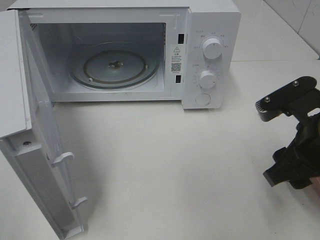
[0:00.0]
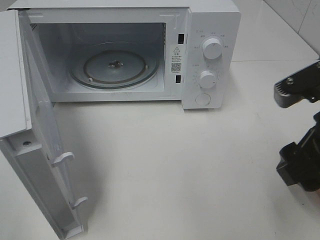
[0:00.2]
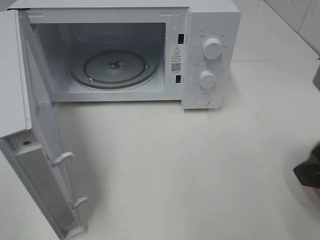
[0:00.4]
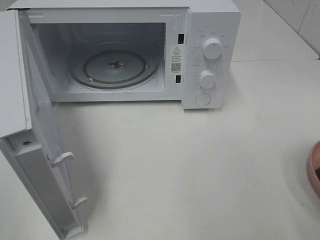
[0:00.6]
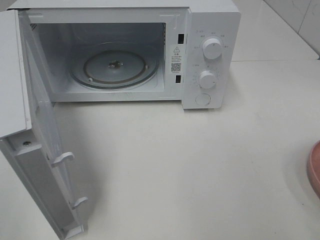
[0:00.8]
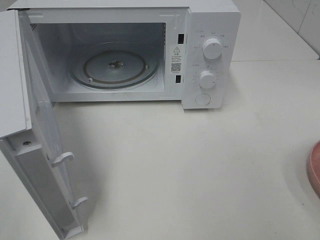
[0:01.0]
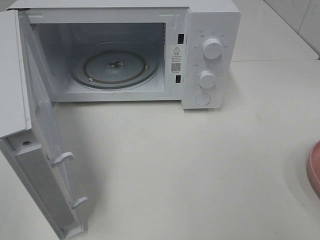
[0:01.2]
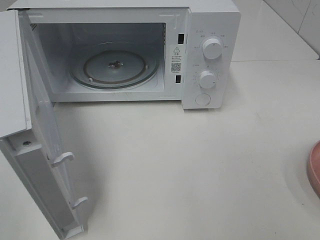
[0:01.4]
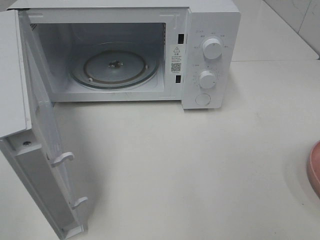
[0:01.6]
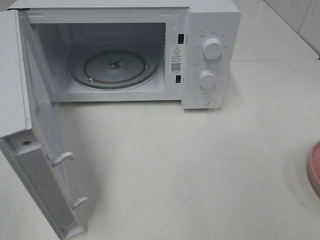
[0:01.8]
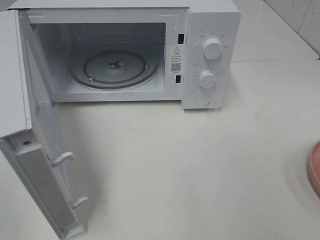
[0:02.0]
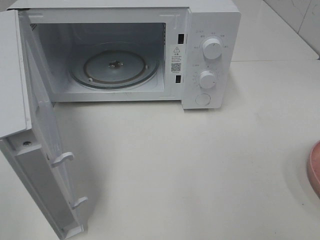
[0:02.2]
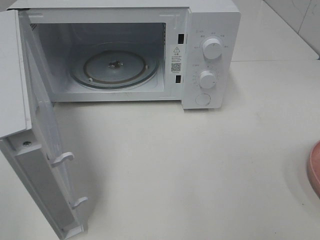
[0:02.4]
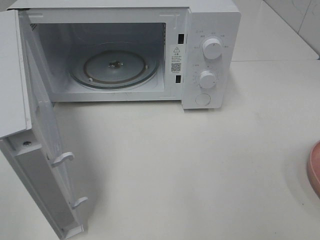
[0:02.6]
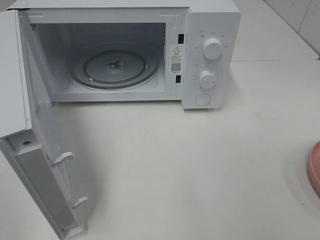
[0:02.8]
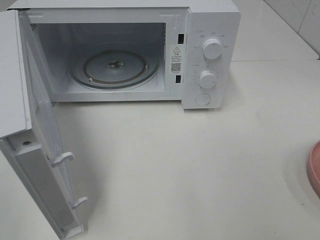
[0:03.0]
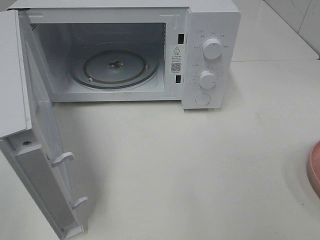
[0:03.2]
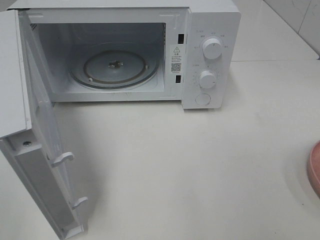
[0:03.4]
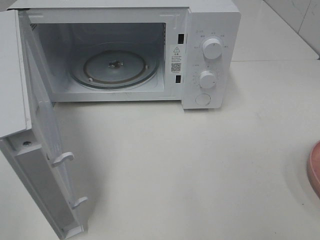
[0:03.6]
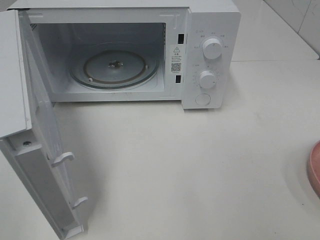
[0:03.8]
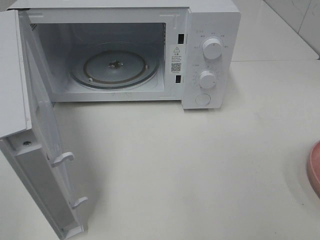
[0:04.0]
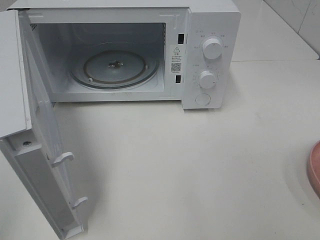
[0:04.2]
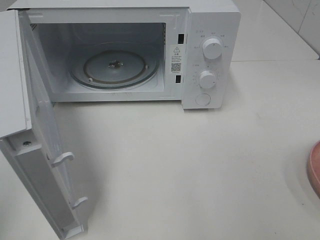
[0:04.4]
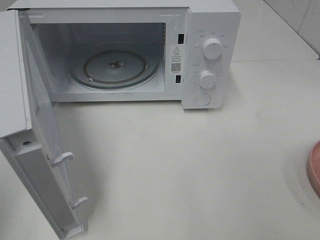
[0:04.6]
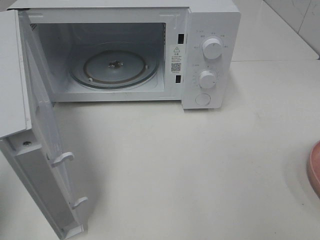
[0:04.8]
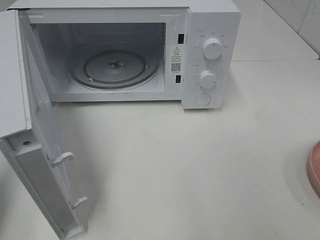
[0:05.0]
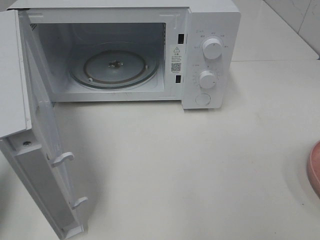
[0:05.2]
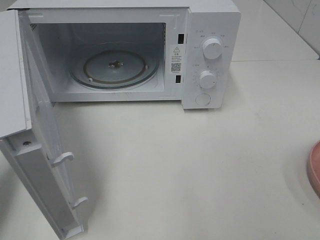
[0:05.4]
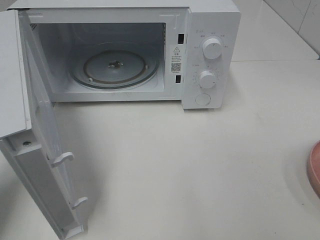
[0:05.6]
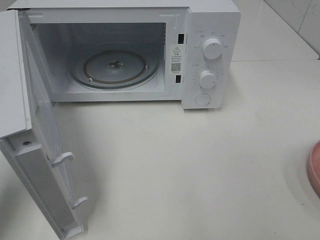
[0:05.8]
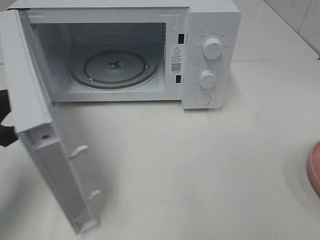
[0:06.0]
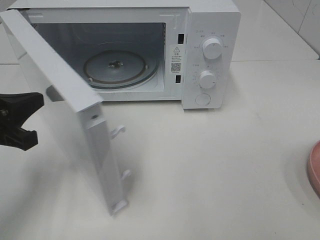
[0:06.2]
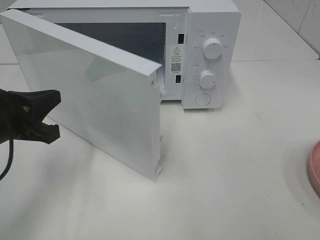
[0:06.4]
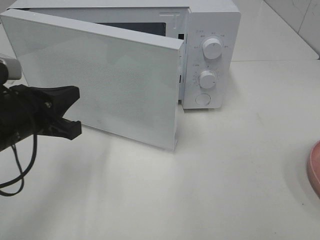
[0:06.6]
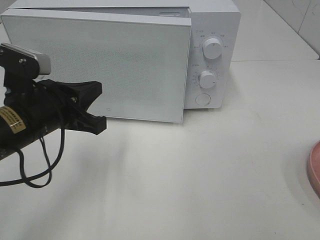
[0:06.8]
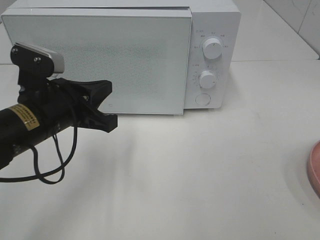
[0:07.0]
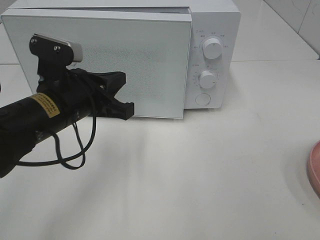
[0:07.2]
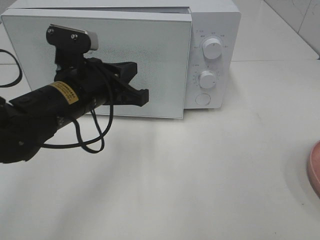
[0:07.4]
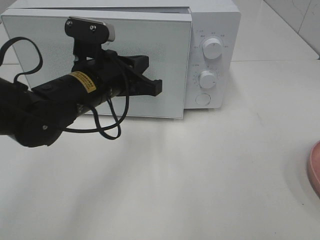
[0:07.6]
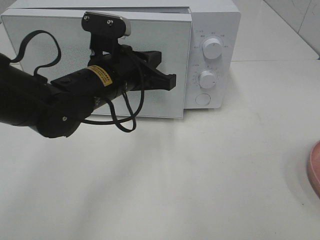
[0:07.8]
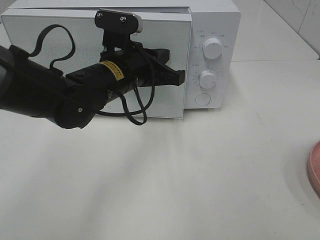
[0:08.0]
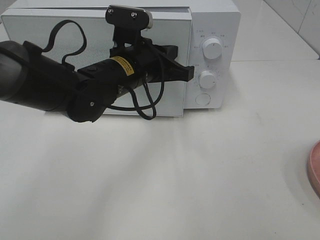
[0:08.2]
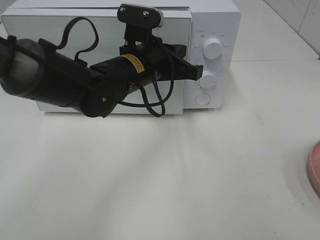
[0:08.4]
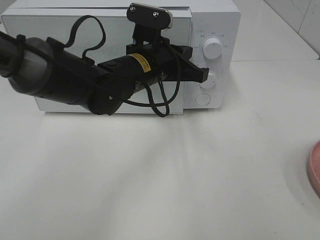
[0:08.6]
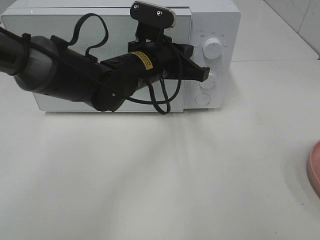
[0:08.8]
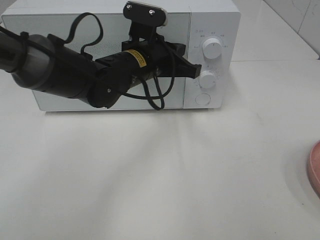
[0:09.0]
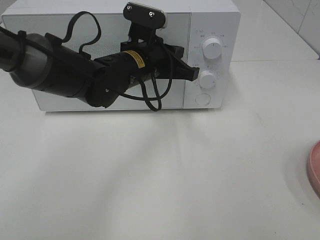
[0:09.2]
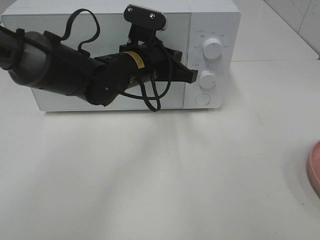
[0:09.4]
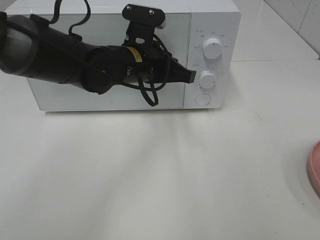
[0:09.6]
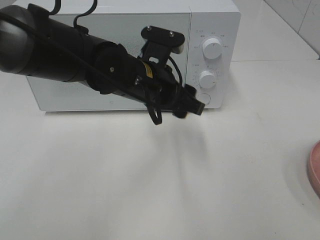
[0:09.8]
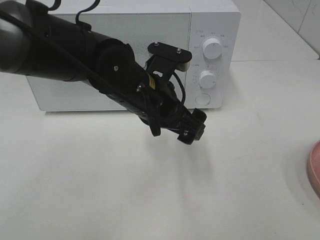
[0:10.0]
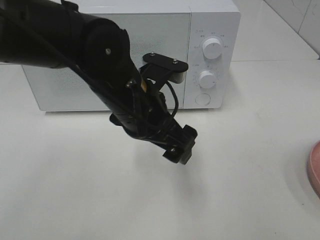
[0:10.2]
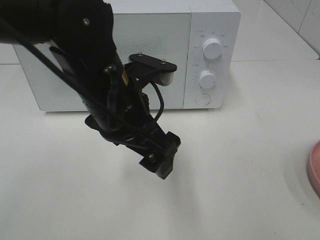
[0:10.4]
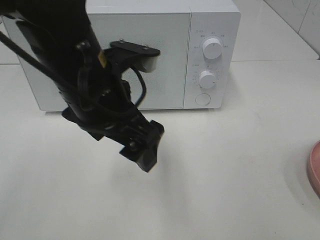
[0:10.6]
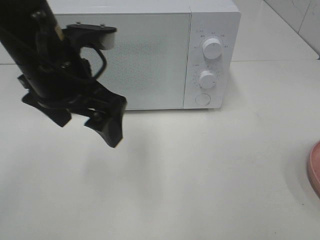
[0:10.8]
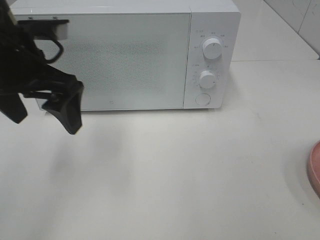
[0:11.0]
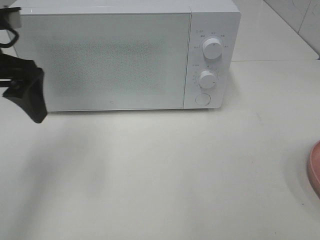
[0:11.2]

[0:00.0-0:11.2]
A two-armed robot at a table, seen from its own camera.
Task of the whole recording: Heat the burger.
Step, 0:00.0 to 0:09.6: Left hand: close the microwave door.
0:00.0 to 0:01.6: The right gripper heads backward, upward and to the right, covering about 20 cm.
0:04.8 to 0:06.4: The left gripper is displaced downward, forward and to the right by about 20 cm.
0:06.4 to 0:08.0: The left gripper goes roughly 20 cm to the right and forward.
0:08.0 to 0:09.6: The grippers move only a little.
0:09.6 to 0:11.2: The left gripper goes roughly 25 cm to the left and upward, and opens up.

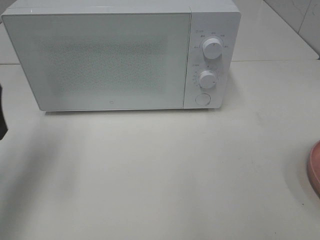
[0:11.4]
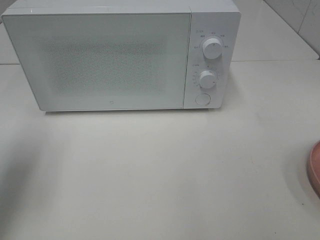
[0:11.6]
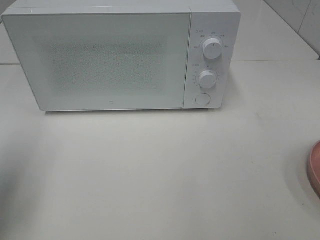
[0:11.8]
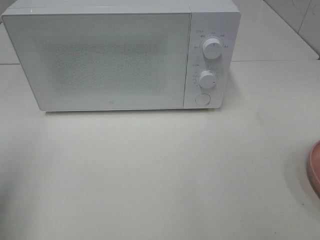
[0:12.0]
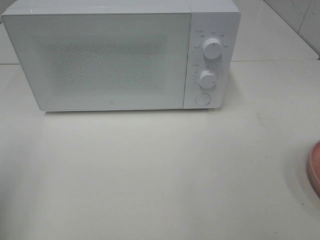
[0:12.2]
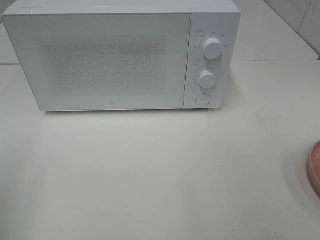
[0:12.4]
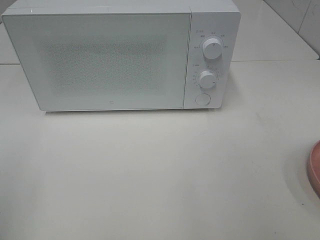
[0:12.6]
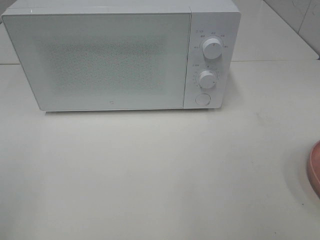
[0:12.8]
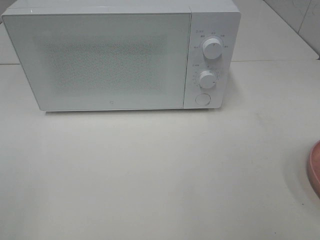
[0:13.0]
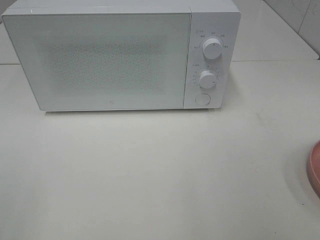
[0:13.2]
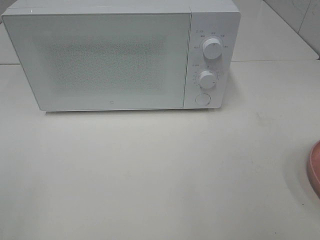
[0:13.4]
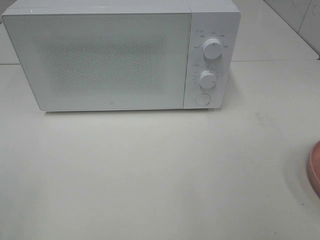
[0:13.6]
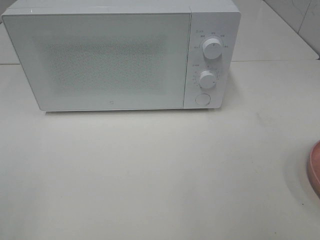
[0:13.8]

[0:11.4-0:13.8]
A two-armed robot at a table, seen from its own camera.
Task of the whole recording: Heat the burger.
0:11.4 to 0:12.6: The left gripper travels backward by approximately 20 cm.

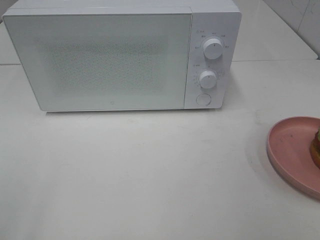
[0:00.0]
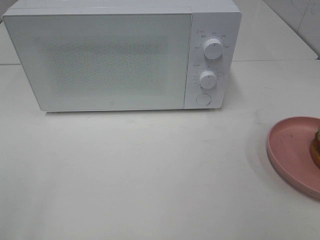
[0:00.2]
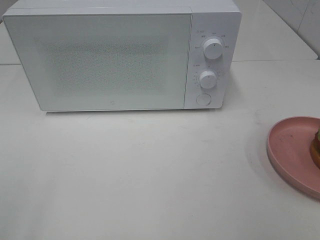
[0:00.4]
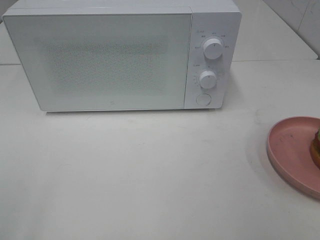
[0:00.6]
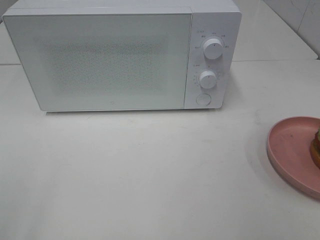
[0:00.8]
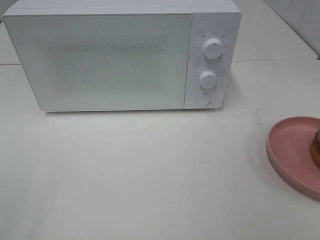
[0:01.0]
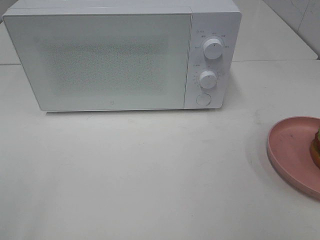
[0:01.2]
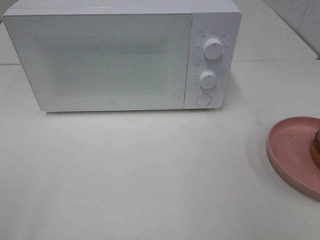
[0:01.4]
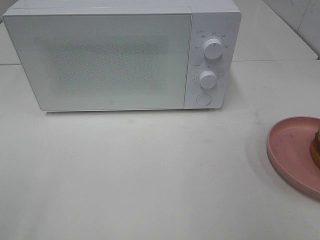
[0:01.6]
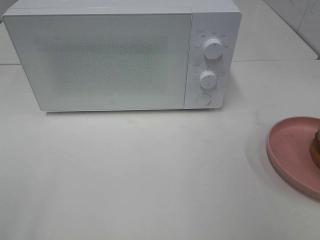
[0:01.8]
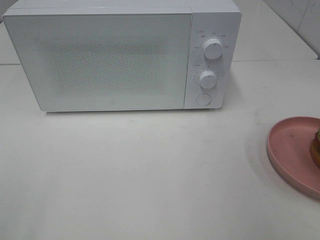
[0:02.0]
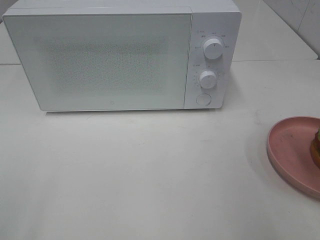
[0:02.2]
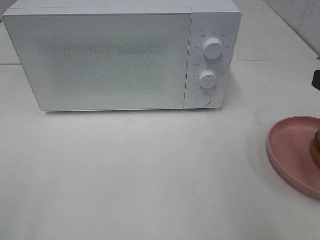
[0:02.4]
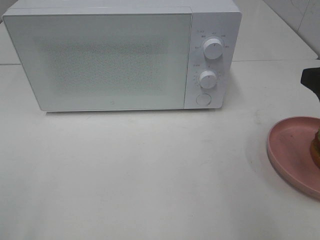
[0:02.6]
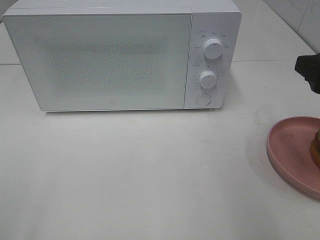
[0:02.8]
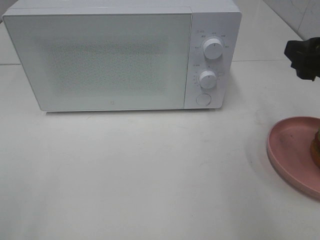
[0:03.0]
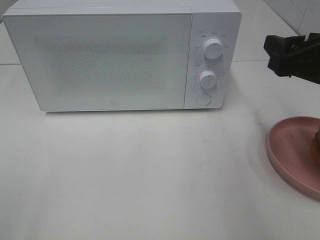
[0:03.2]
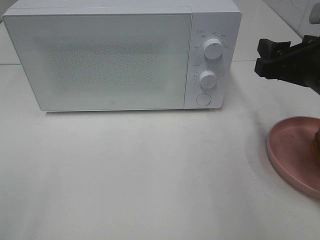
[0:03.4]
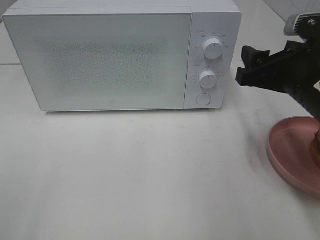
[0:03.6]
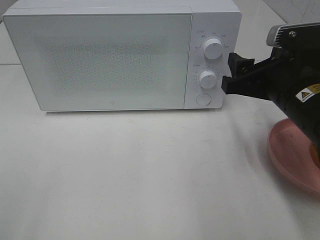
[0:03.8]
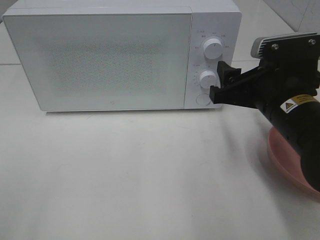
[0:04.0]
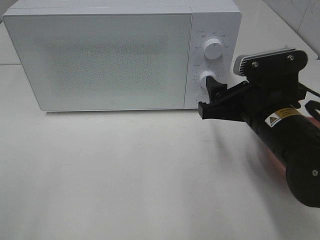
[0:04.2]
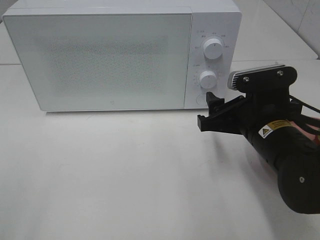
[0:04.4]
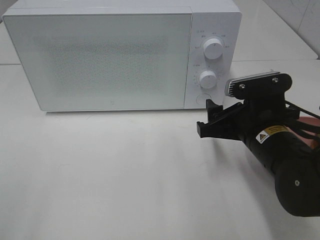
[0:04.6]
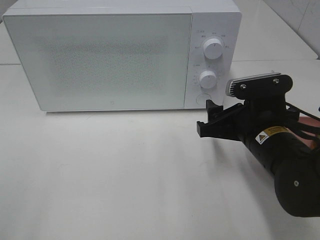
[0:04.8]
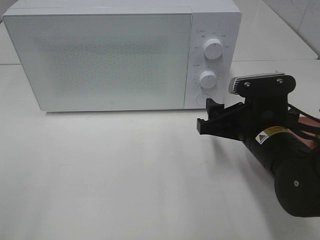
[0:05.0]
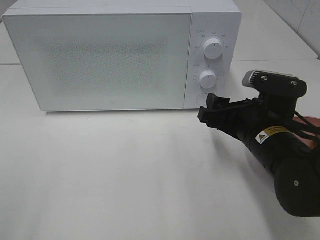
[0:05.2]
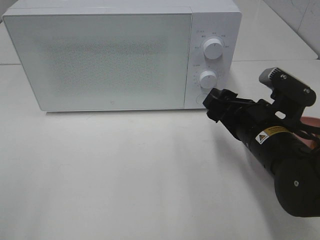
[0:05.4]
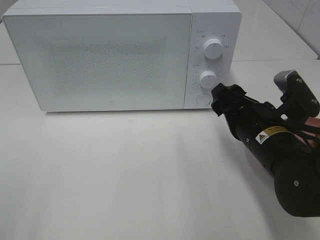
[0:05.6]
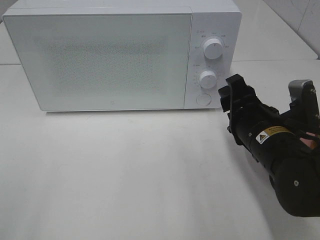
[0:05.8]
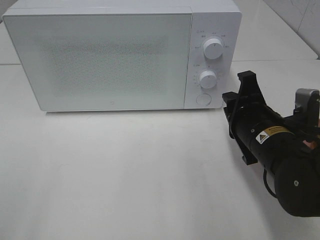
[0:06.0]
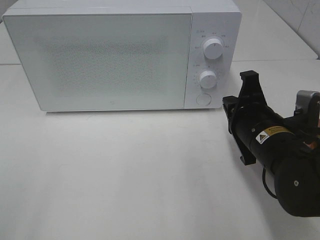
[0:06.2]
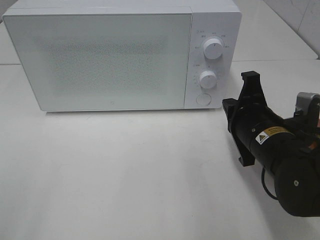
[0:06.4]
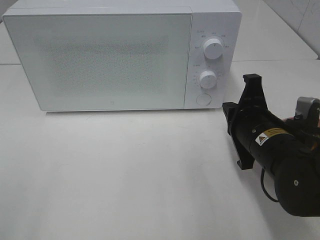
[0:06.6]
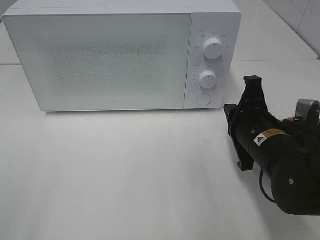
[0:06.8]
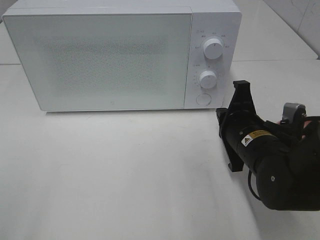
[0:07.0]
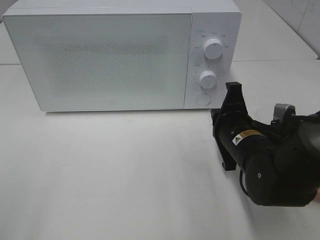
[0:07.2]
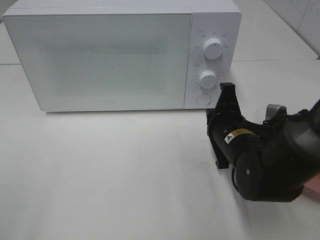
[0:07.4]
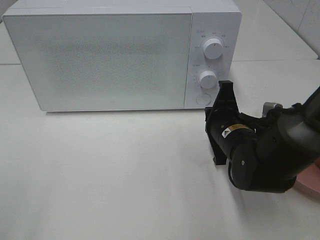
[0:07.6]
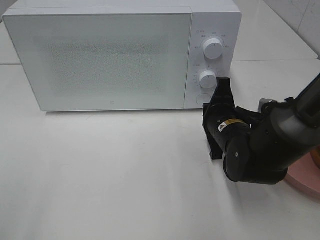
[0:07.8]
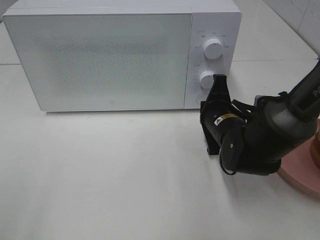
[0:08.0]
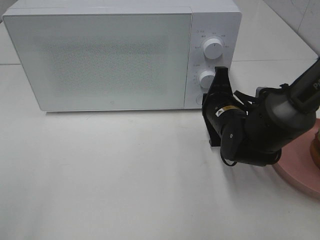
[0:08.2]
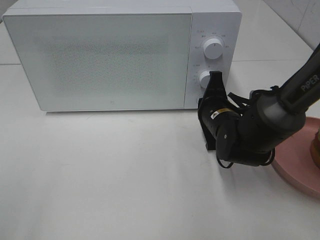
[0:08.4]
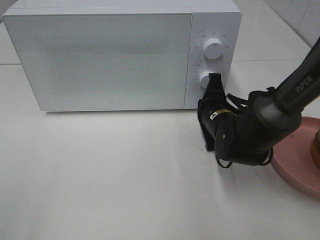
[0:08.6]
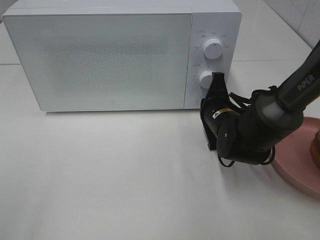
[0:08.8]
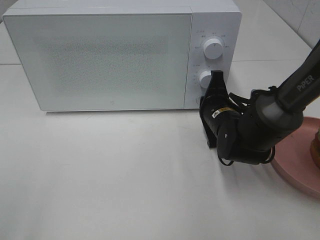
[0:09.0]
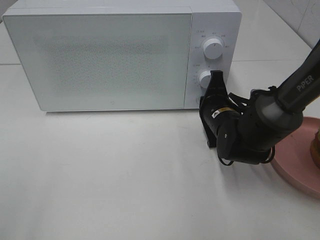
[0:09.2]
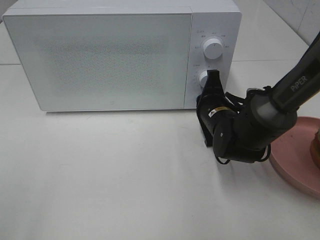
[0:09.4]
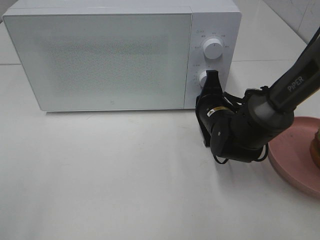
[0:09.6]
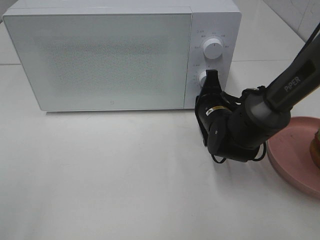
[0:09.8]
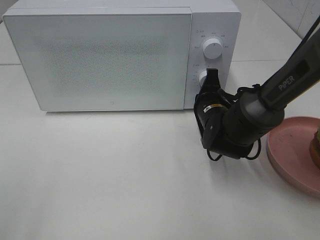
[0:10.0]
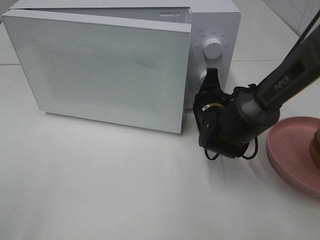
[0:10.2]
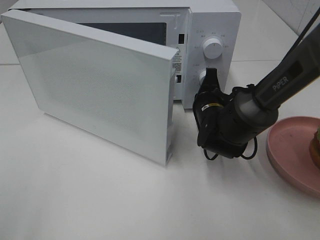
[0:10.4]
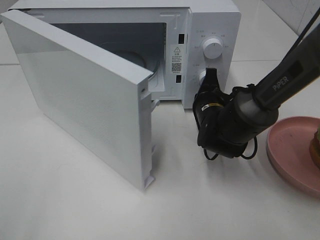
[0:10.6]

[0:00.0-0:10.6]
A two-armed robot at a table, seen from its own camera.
Task of the whole recording: Heat the burger.
0:01.6 to 0:03.0: The right gripper goes about 15 cm forward.
0:03.0 to 0:04.6: The right gripper goes roughly 15 cm downward and to the left.
0:04.6 to 0:06.0: The right gripper closes its fingers.
0:06.0 to 0:07.6: The right gripper moves some 5 cm.
0:07.6 to 0:09.0: The right gripper is displaced forward by about 5 cm.
